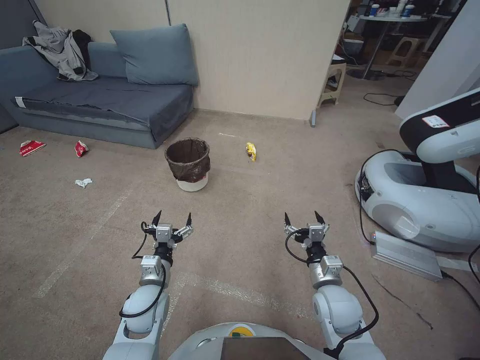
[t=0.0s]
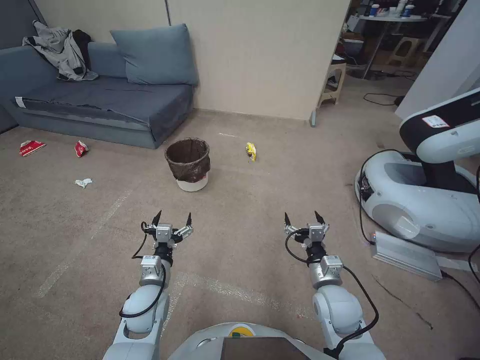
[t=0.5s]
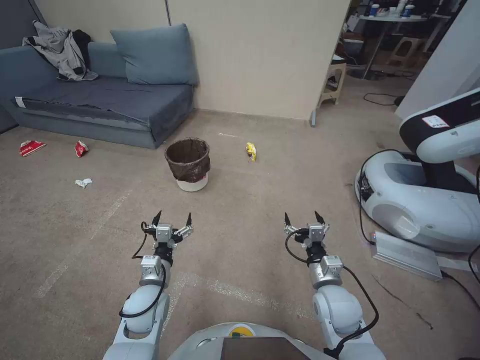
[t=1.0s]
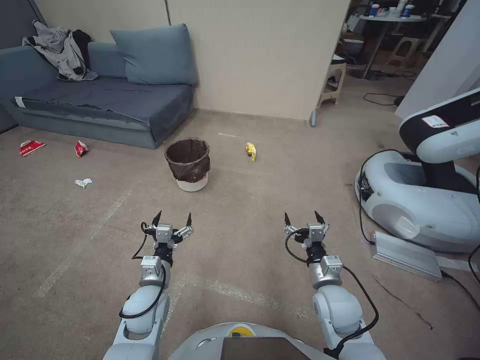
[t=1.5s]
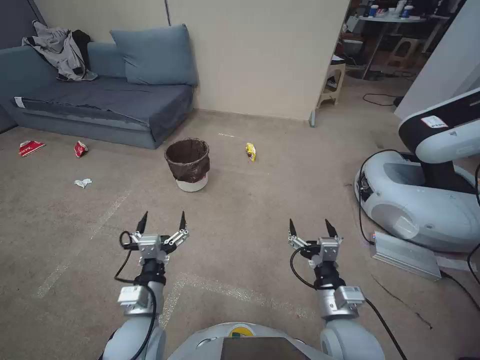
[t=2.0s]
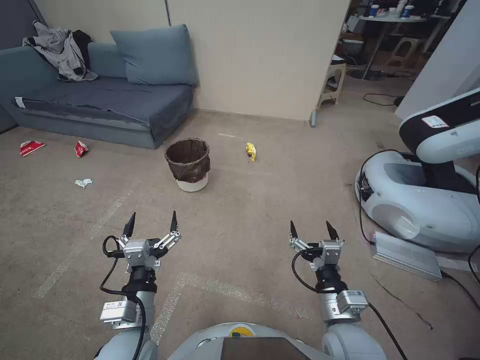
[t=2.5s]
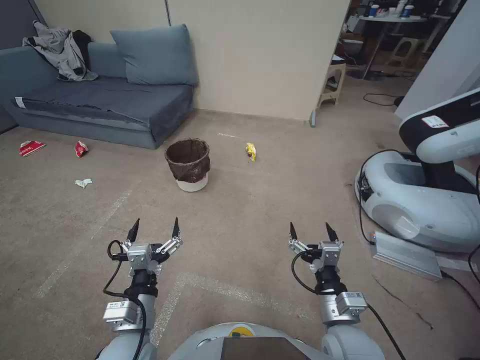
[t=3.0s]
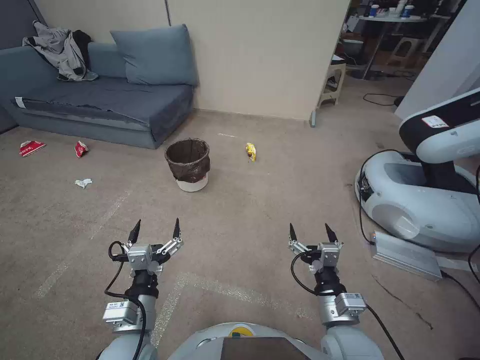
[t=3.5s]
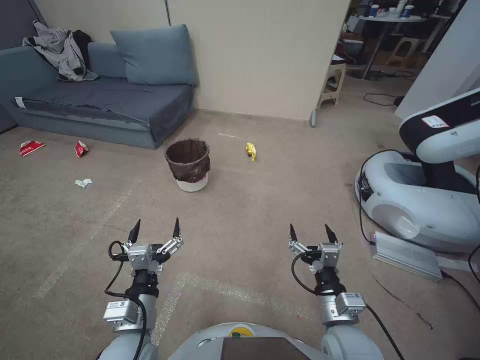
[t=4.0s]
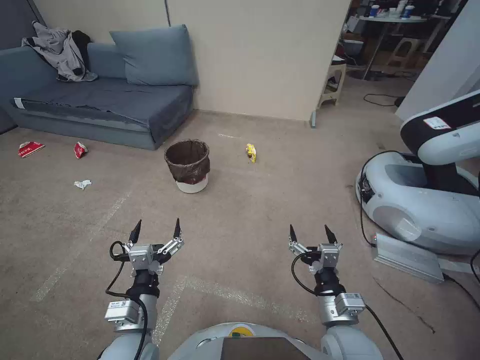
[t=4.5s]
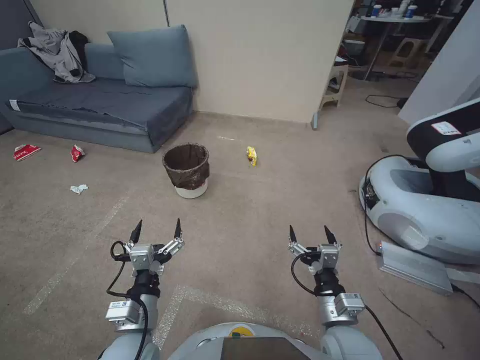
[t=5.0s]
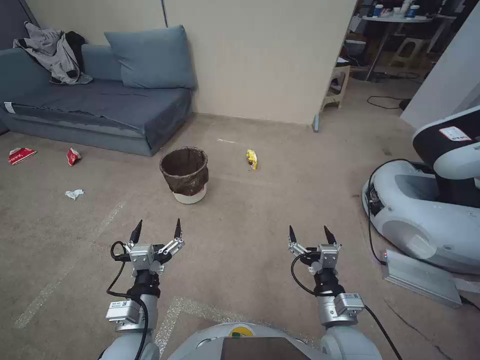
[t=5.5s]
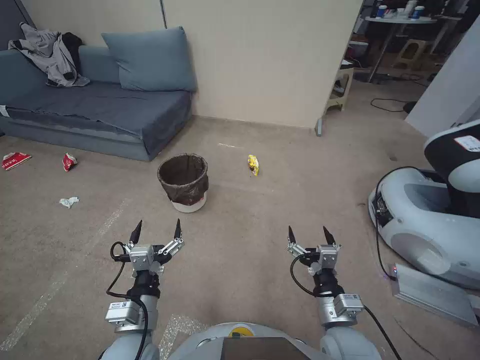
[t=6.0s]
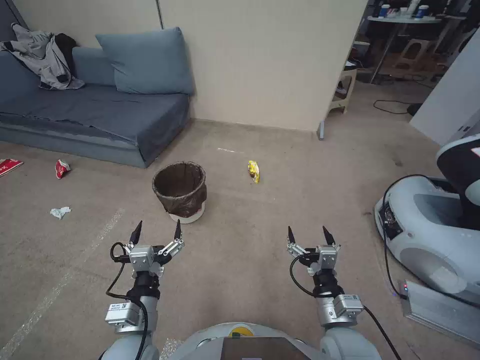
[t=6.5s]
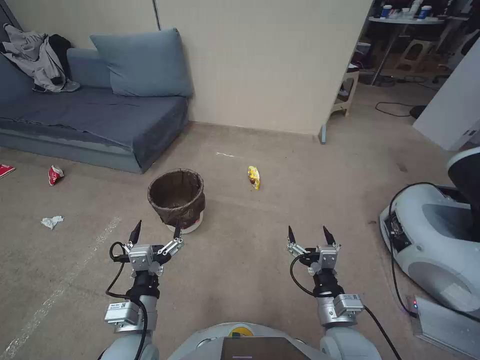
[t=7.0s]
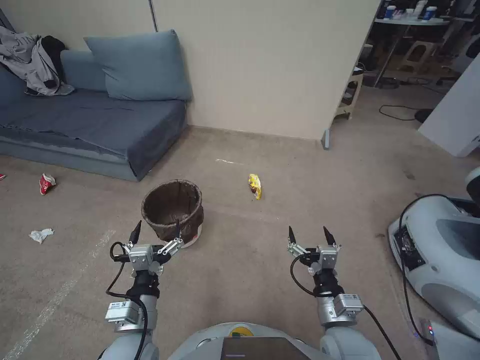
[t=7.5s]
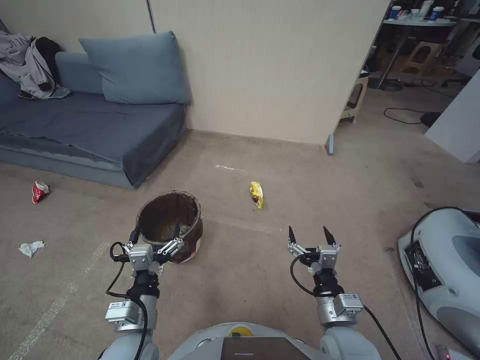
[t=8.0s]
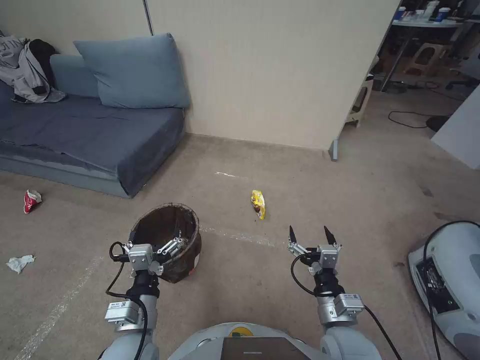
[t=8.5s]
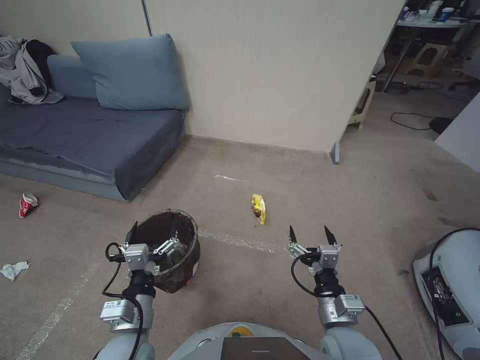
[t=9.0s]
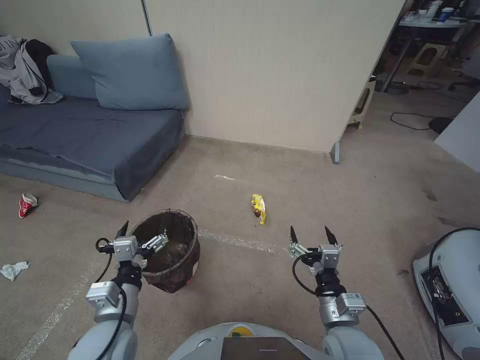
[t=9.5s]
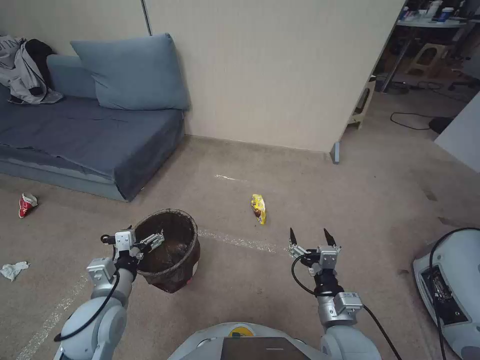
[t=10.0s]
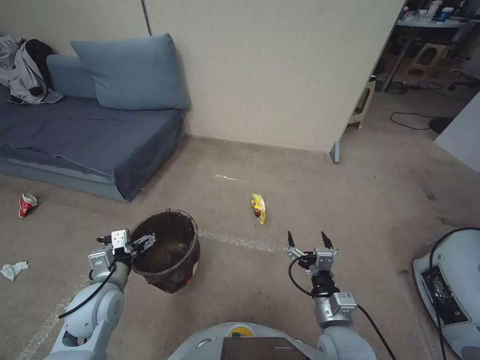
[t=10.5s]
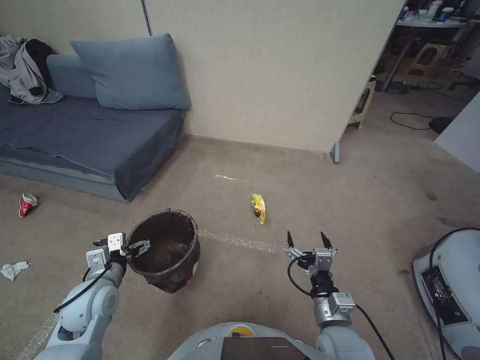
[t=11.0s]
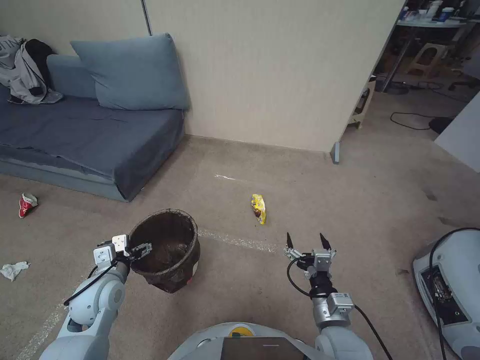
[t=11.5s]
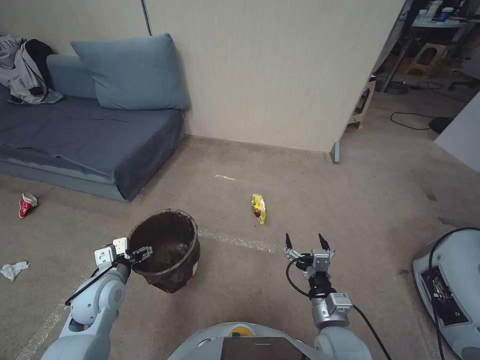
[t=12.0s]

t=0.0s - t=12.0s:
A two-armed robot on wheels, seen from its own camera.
Task of the whole recording: Pick up the trash bin, then pick up the garbage from the floor and place it into the trash bin.
t=2.0s - t=4.0s: There are only small adjustments of the grippers.
t=8.0s - t=10.0s: The left gripper is displaced to the left and forward by some 10 cm.
t=10.0s - t=12.0s: The left gripper shifts about 5 cm forward.

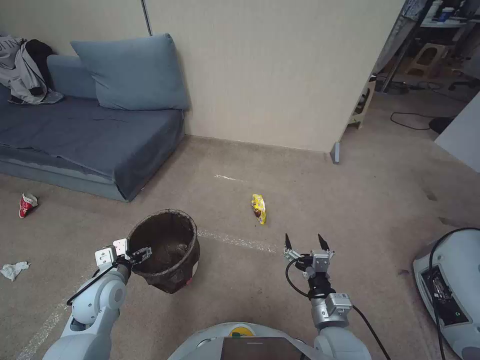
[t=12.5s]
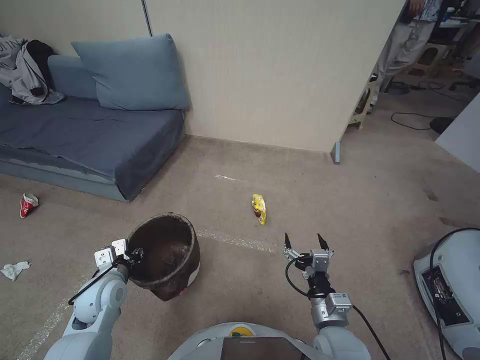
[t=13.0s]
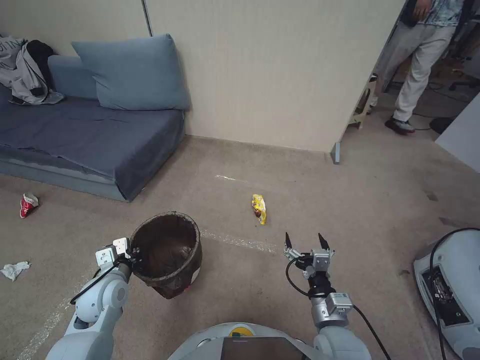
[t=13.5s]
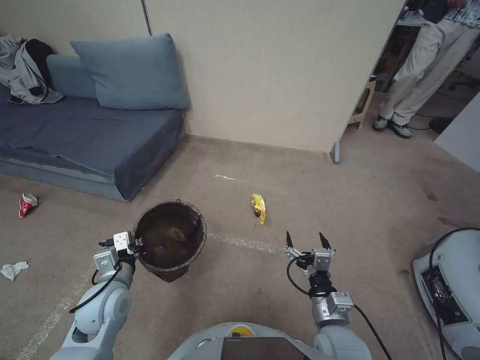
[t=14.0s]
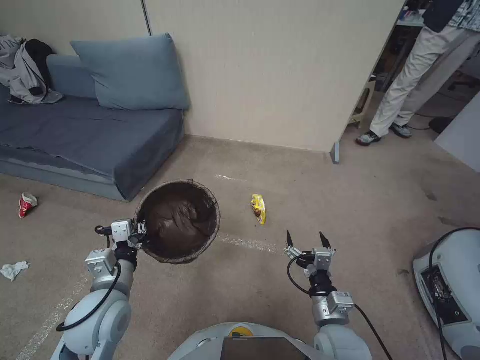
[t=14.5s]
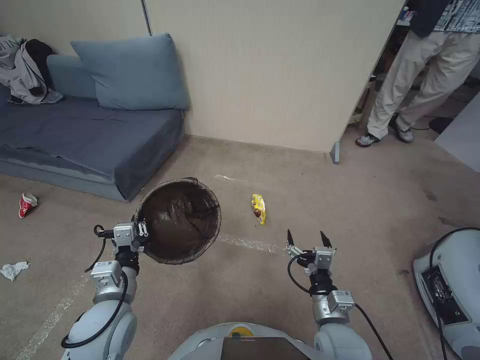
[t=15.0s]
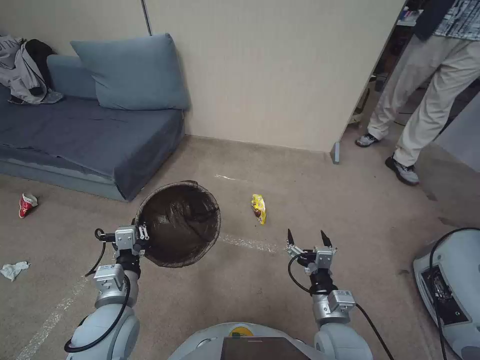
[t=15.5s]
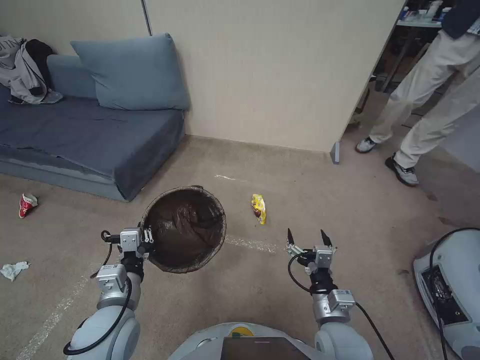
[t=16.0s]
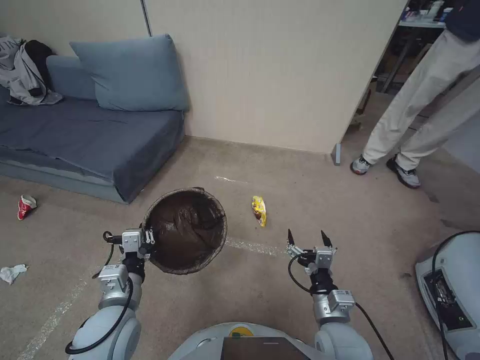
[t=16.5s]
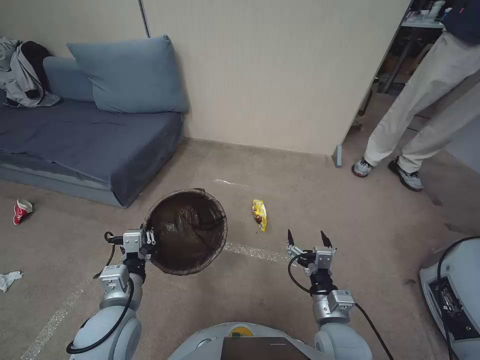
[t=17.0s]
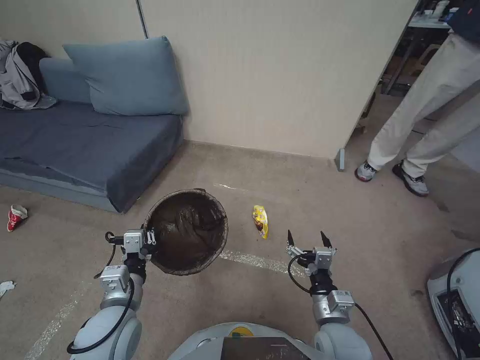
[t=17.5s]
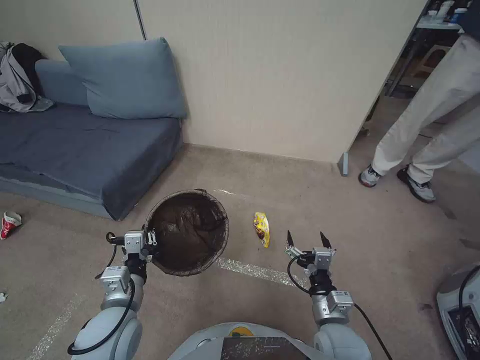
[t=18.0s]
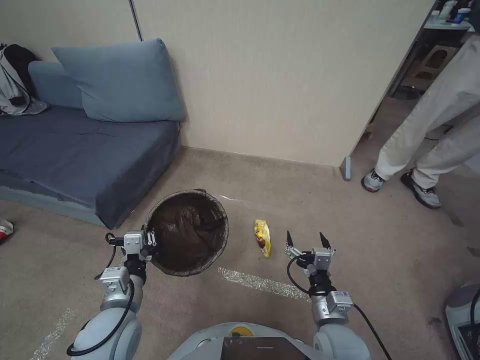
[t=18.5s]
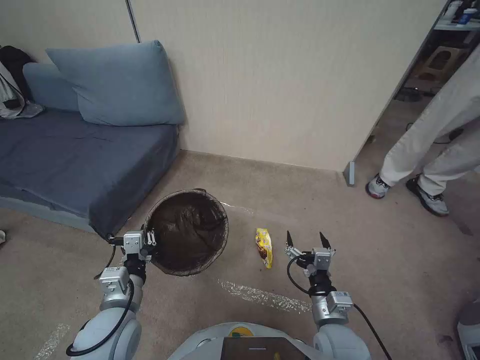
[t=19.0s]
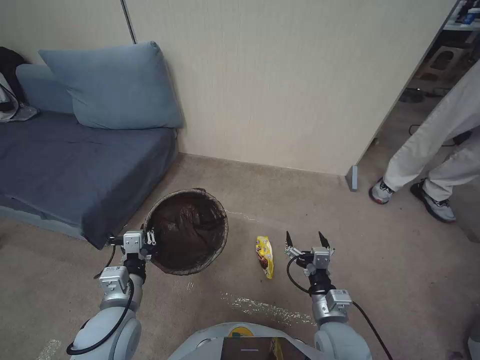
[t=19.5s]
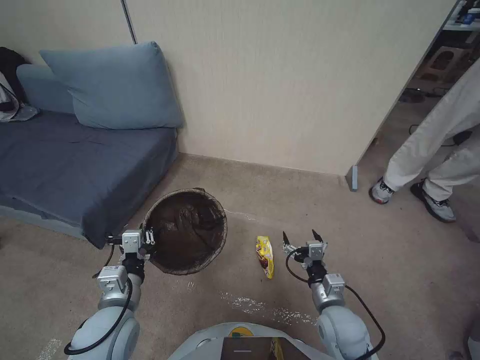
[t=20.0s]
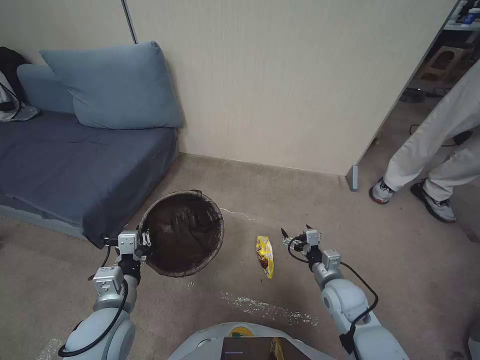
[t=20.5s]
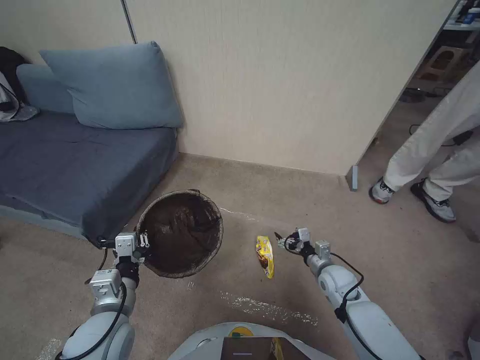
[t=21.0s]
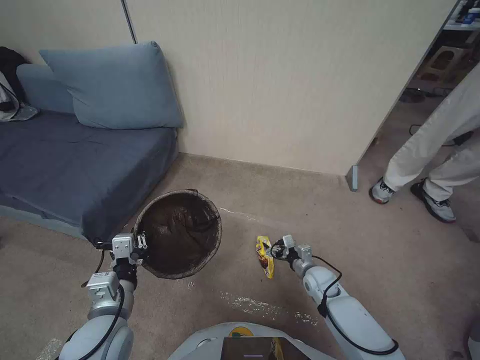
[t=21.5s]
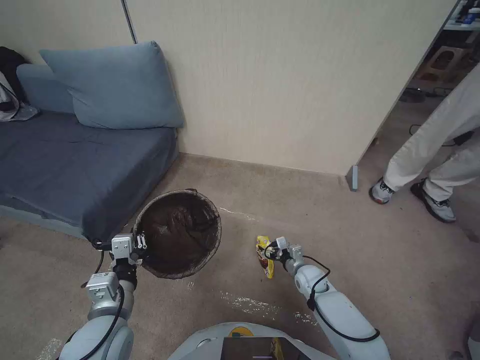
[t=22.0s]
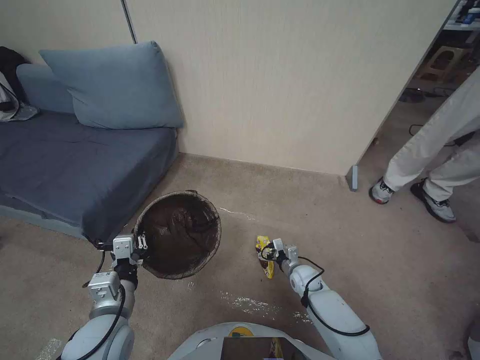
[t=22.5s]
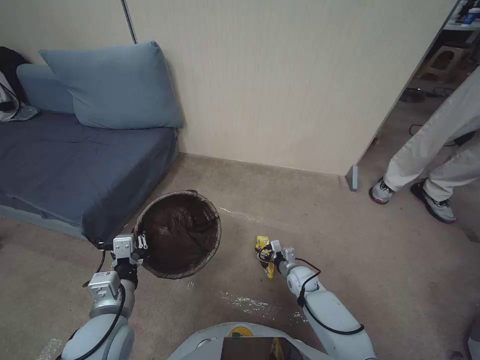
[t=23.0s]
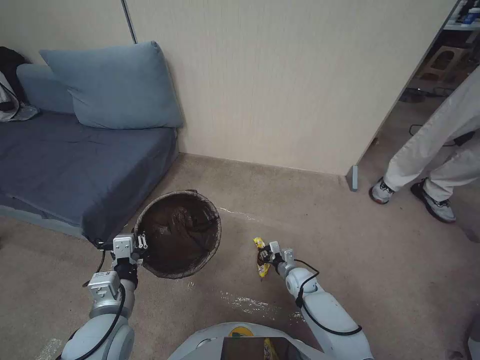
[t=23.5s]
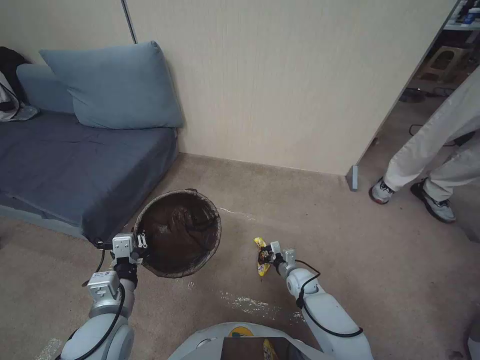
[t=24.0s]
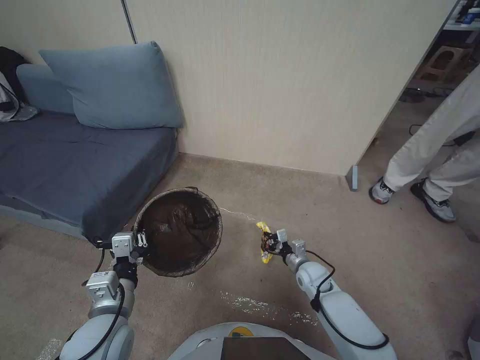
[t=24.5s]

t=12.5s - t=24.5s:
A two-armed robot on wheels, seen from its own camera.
Task of the whole recording: Pick up the trash bin, then pick up the garbage from the floor and place it into the trash bin.
t=12.5s - t=14.5s: The left gripper moves upward and to the right, approximately 10 cm, and closes.
t=14.5s - t=16.5s: The grippers stay close to where they were, moving slightly.
t=18.5s - t=20.5s: The right gripper shifts roughly 10 cm forward and to the right.
t=20.5s - t=22.5s: The right gripper goes approximately 15 cm downward and forward.
t=22.5s - t=24.5s: The right gripper closes.

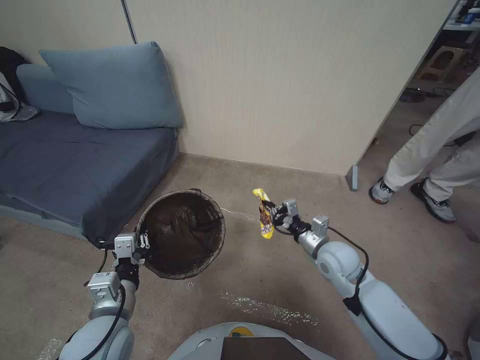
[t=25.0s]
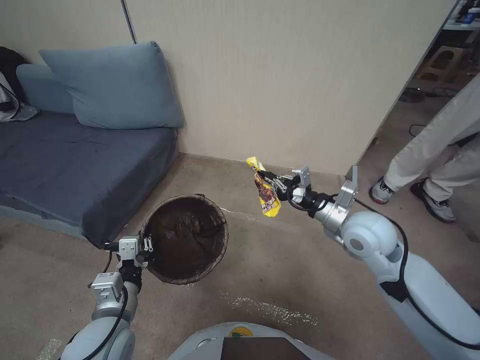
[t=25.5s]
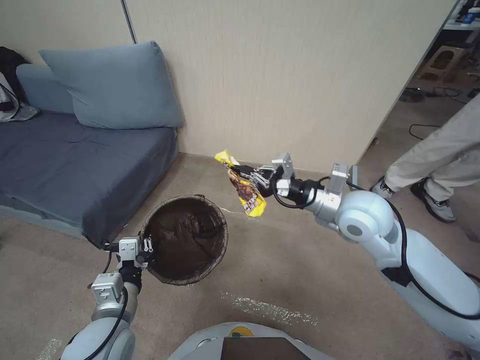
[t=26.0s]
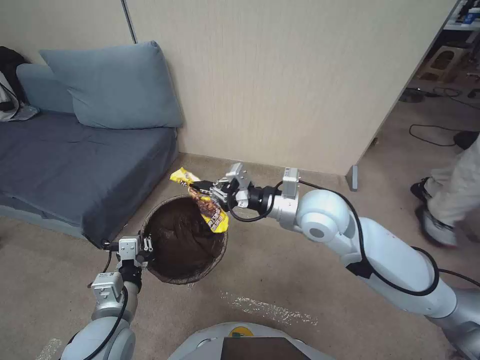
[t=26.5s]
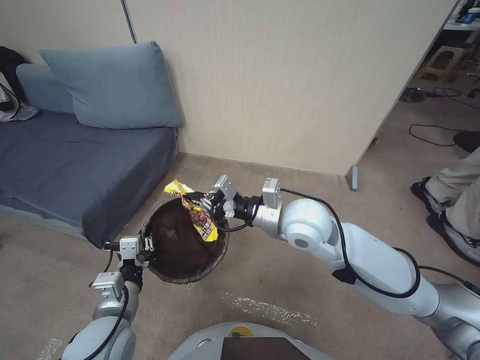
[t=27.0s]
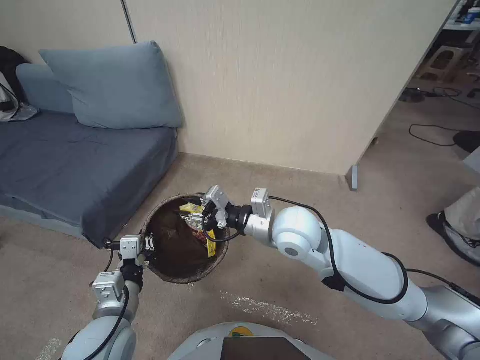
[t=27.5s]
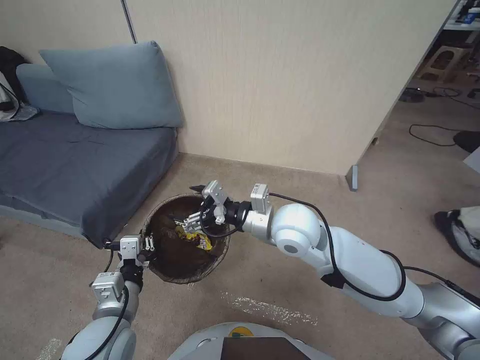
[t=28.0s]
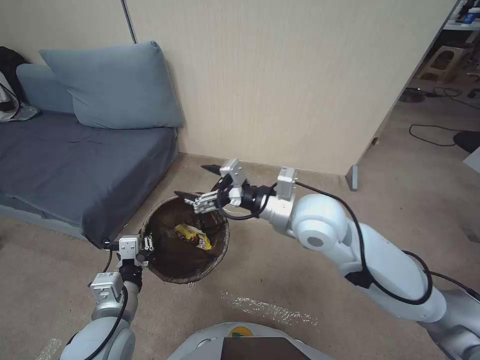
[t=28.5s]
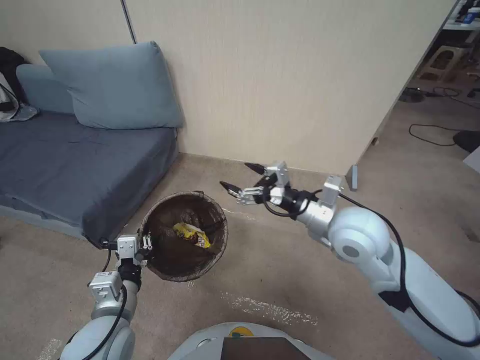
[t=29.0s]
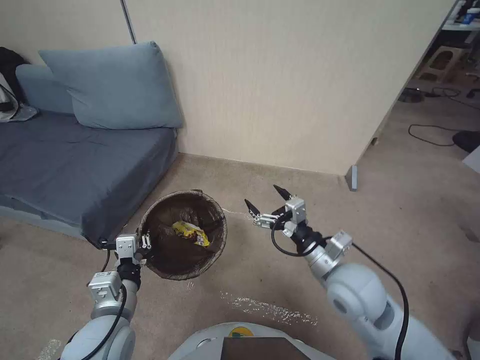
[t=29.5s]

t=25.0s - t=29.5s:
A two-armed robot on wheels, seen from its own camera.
Task of the whole recording: Pick up the trash bin, then pick up the garbage from the floor and place it into the trash bin.
t=25.0s - t=27.0s: The right gripper heads upward and to the left, covering about 25 cm.
t=27.0s - t=29.5s: The right gripper travels backward, to the right and downward by roughly 15 cm, and opens its fingers.
